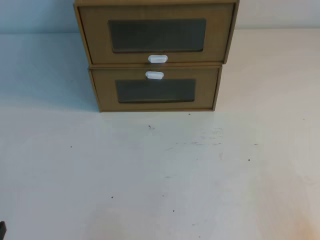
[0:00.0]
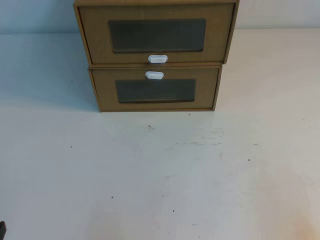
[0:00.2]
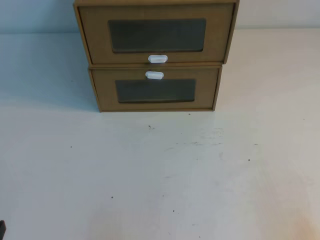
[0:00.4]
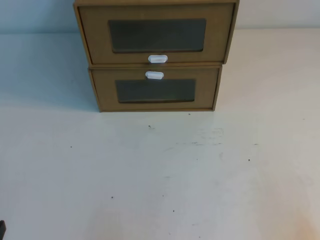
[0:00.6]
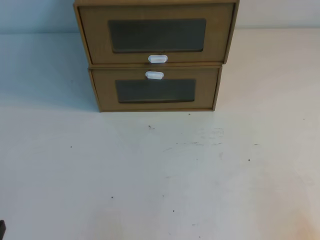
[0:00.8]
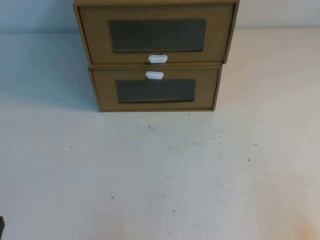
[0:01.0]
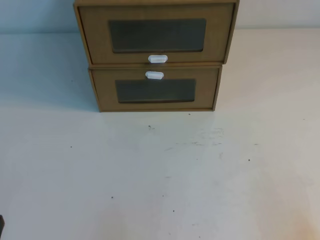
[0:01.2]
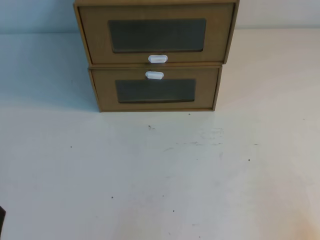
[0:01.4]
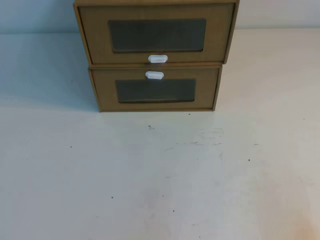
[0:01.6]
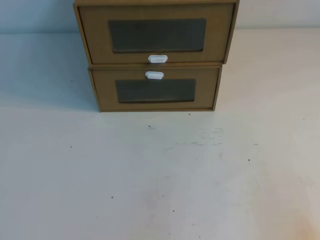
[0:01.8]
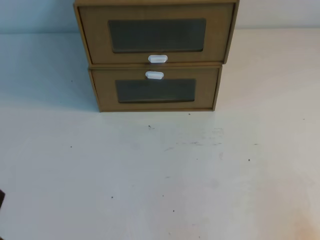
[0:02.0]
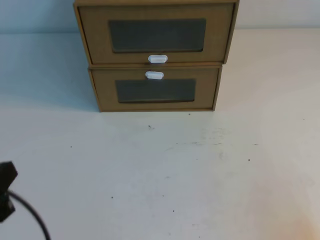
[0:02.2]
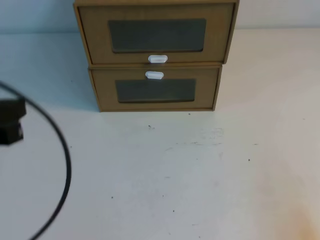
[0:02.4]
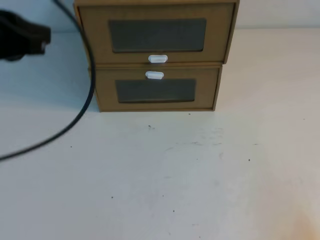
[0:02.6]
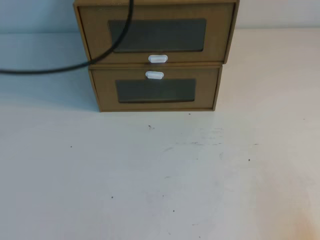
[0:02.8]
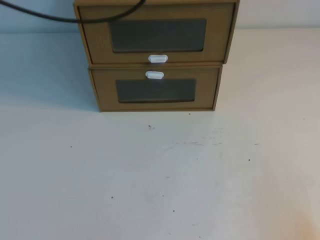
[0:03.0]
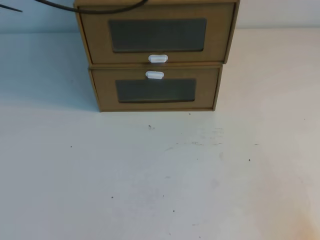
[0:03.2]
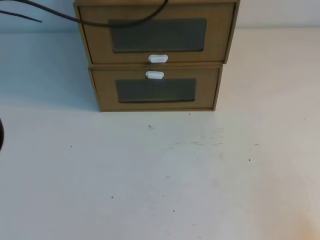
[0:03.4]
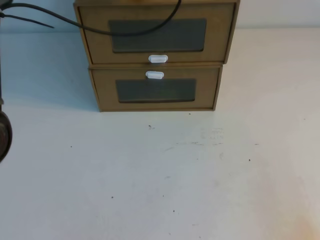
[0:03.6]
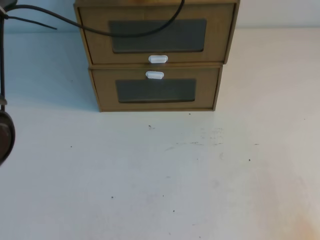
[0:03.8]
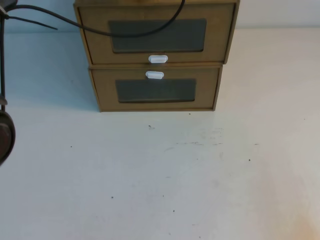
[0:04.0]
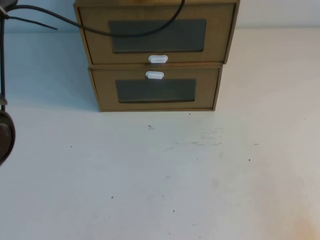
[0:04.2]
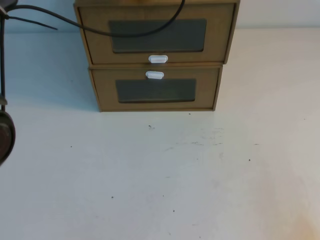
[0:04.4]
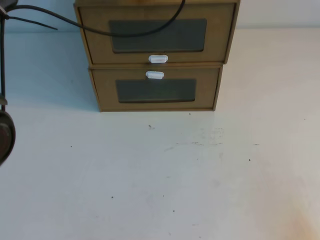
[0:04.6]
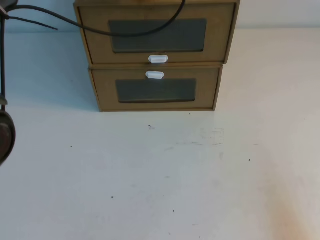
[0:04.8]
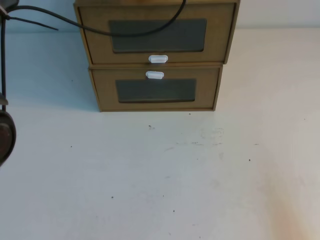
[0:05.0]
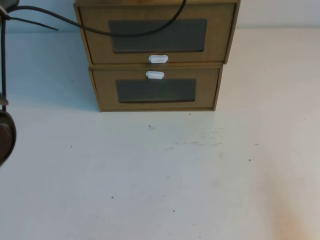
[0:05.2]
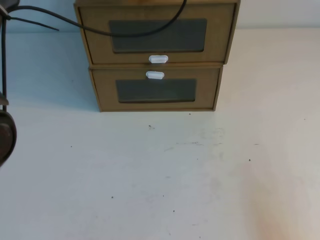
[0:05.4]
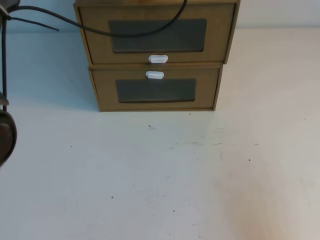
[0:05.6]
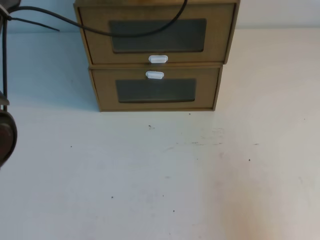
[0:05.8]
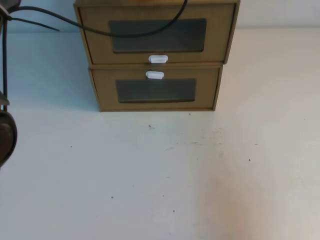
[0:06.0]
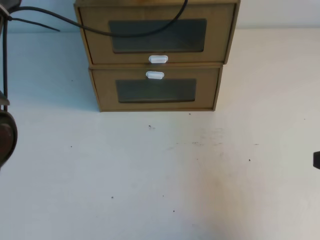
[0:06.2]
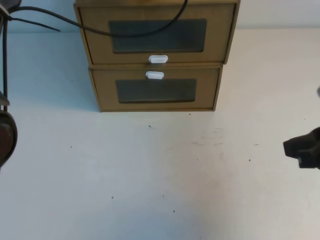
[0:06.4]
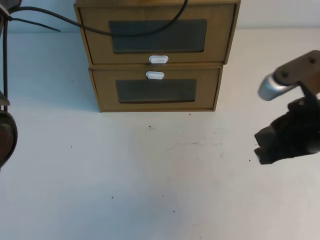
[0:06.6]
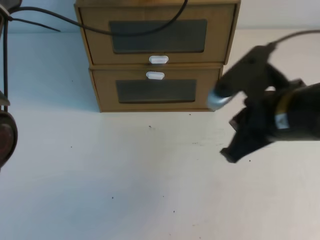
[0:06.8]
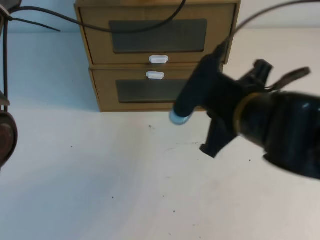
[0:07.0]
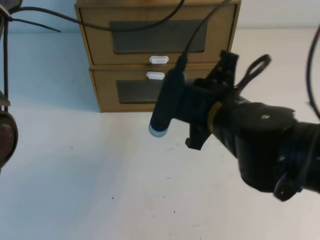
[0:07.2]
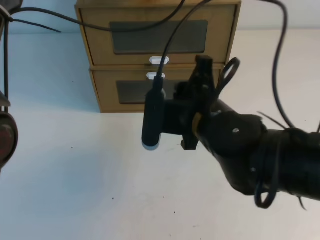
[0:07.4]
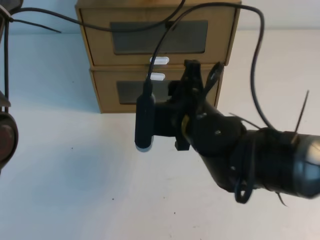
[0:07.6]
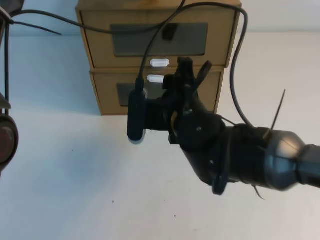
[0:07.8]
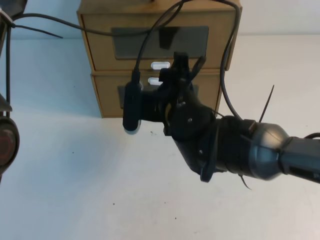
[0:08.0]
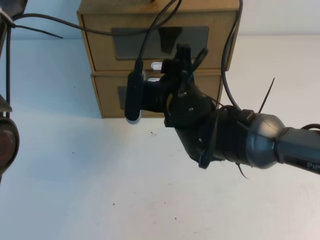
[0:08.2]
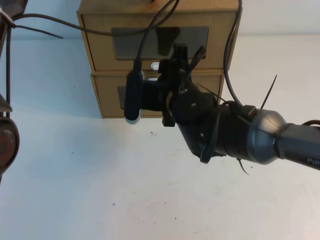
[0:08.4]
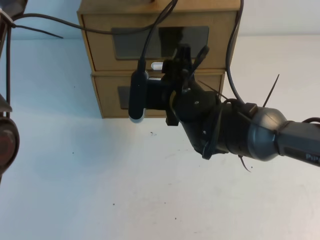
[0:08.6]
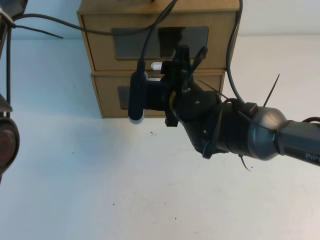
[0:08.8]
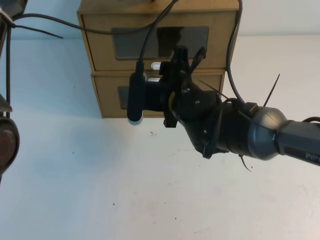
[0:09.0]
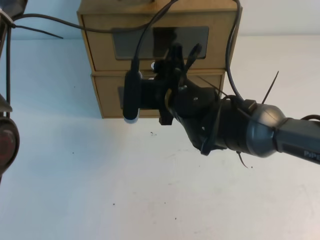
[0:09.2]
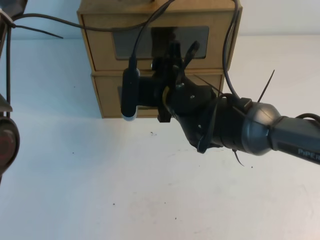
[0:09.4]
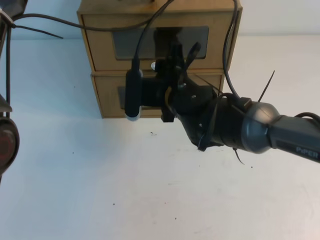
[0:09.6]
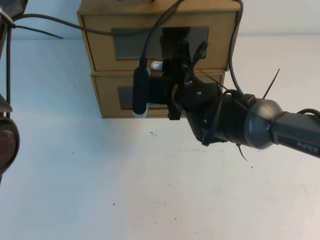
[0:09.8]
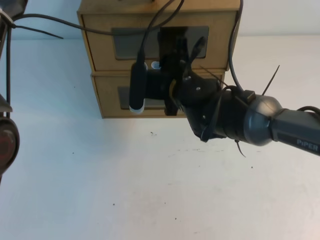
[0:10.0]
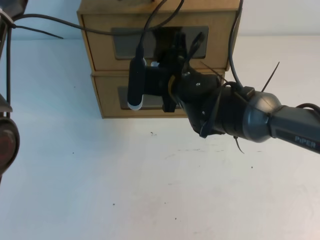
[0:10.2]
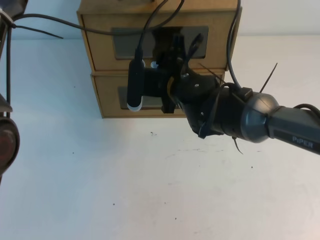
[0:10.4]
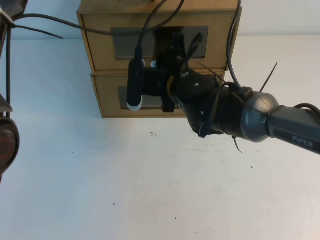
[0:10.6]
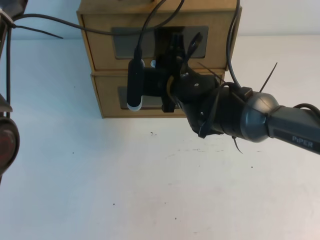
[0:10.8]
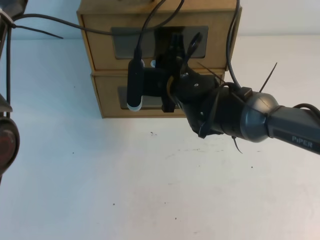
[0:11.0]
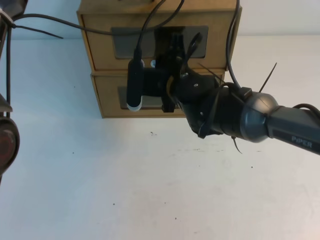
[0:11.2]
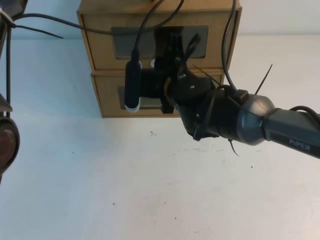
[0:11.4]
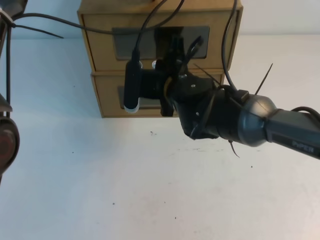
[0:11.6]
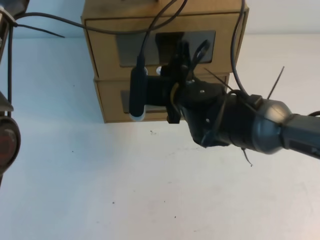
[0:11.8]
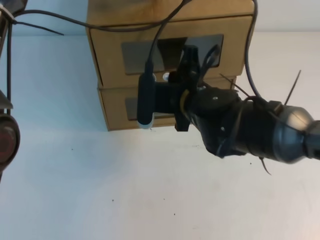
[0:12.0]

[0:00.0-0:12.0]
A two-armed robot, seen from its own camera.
Task of the whole recording: open the shoebox on the table.
0:01.6 to 0:03.0: The left gripper shifts some 40 cm upward and forward.
0:03.0 to 0:04.4: The left gripper goes approximately 15 cm forward, downward and to the right.
0:04.4 to 0:06.0: The right gripper shifts some 10 cm upward.
0:06.0 to 0:07.6: The right gripper heads to the left and forward, covering approximately 30 cm, and opens up.
0:07.6 to 0:09.0: The right gripper moves forward, about 10 cm, and opens.
0:09.0 to 0:10.4: The grippers stay close to where they were, moving slightly.
0:10.4 to 0:12.0: The right gripper closes.

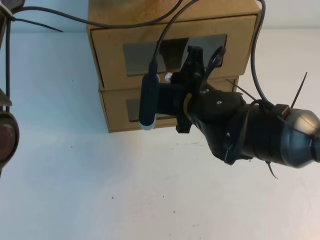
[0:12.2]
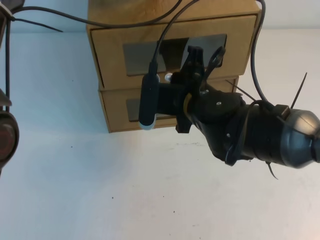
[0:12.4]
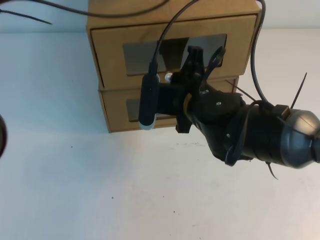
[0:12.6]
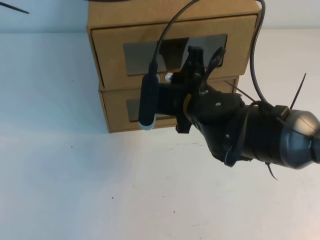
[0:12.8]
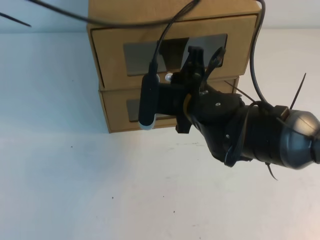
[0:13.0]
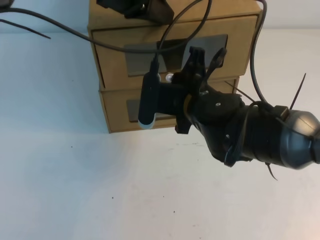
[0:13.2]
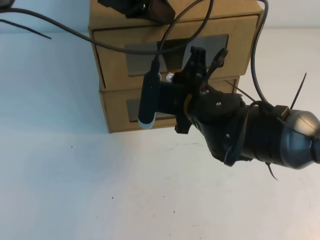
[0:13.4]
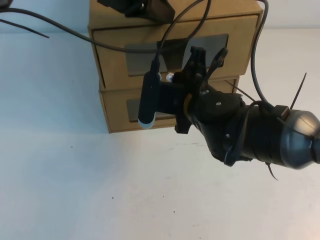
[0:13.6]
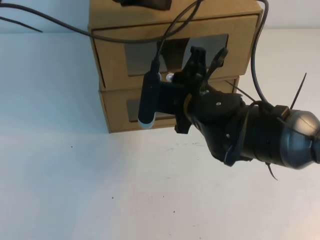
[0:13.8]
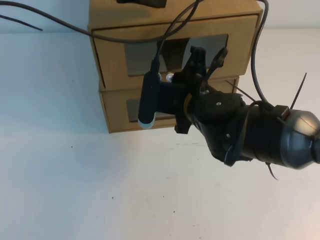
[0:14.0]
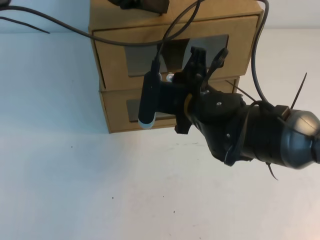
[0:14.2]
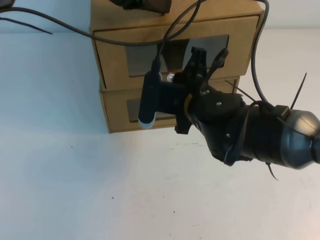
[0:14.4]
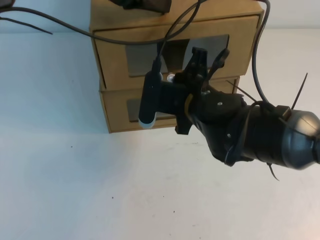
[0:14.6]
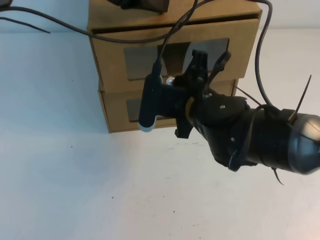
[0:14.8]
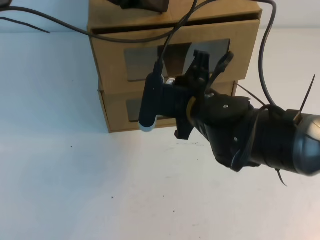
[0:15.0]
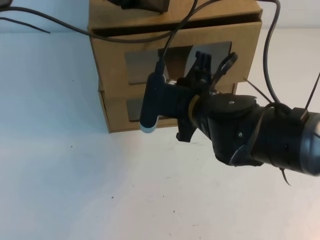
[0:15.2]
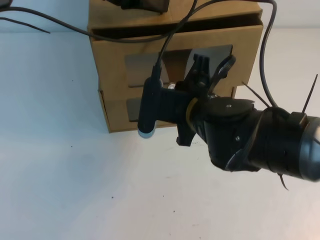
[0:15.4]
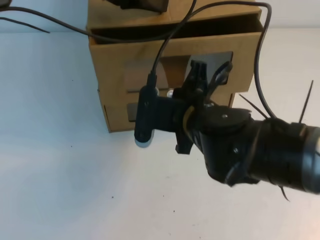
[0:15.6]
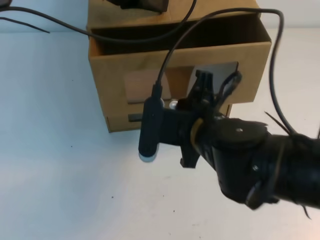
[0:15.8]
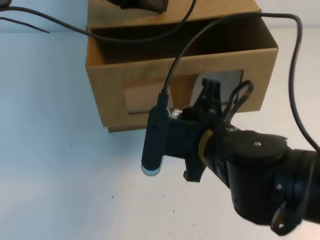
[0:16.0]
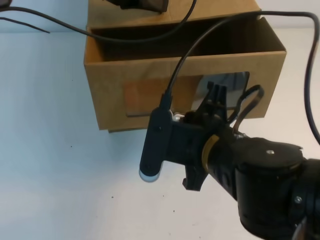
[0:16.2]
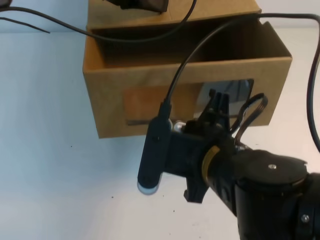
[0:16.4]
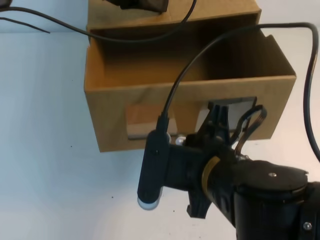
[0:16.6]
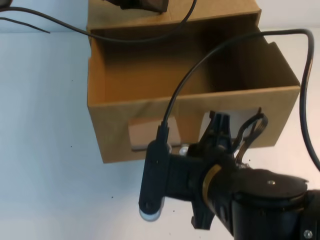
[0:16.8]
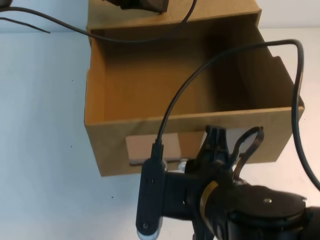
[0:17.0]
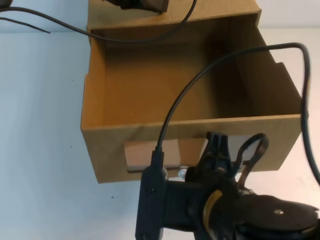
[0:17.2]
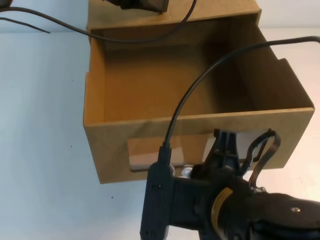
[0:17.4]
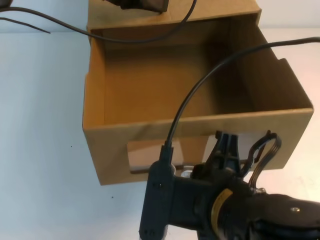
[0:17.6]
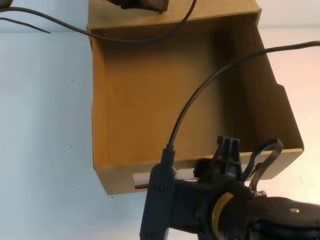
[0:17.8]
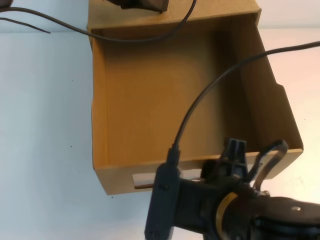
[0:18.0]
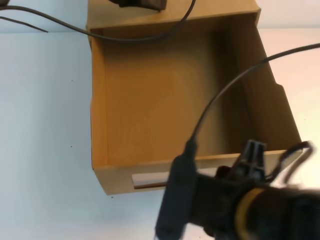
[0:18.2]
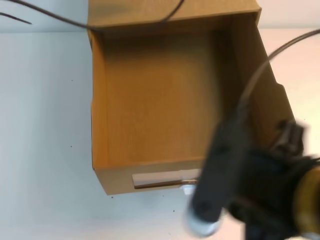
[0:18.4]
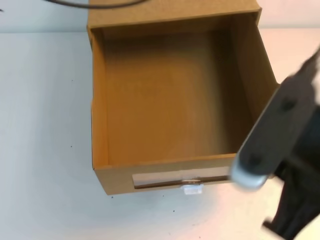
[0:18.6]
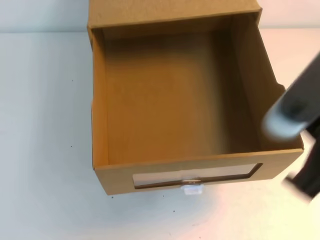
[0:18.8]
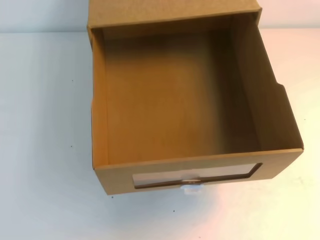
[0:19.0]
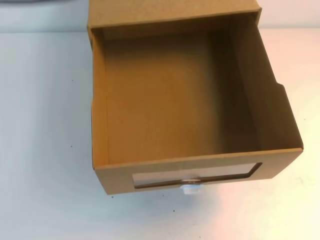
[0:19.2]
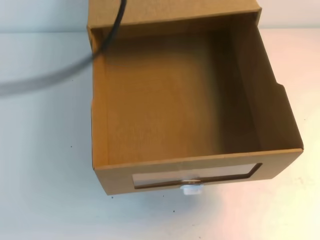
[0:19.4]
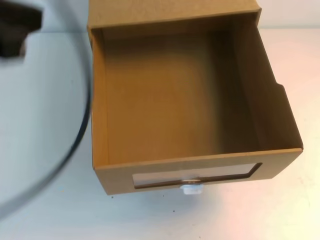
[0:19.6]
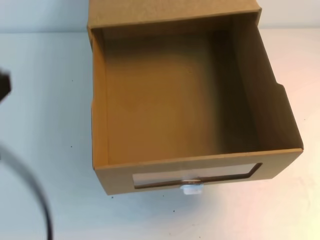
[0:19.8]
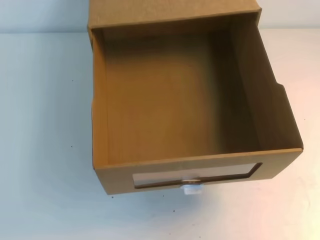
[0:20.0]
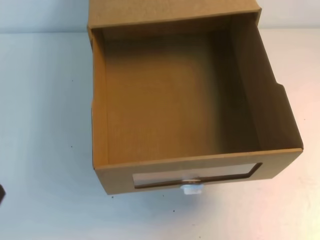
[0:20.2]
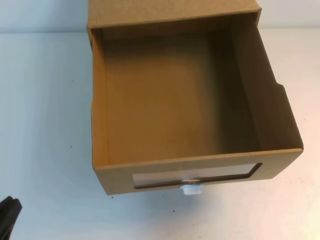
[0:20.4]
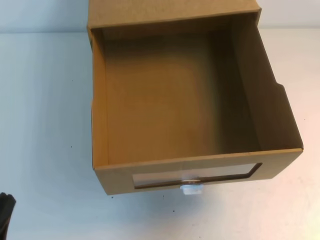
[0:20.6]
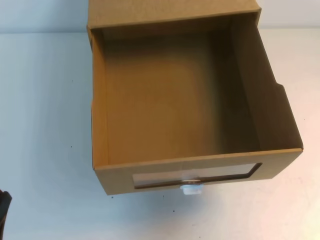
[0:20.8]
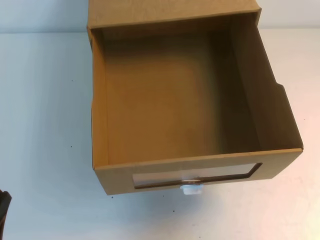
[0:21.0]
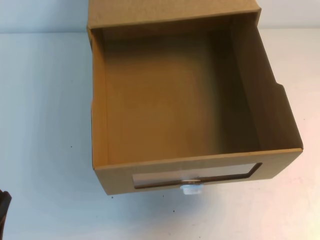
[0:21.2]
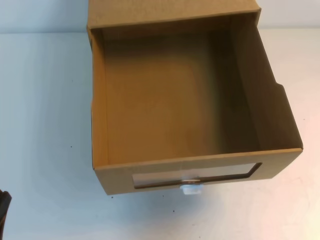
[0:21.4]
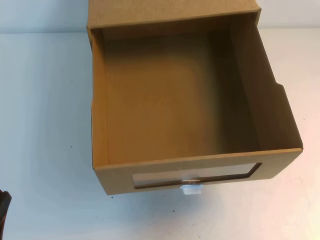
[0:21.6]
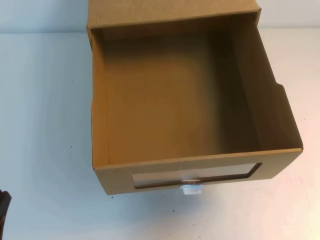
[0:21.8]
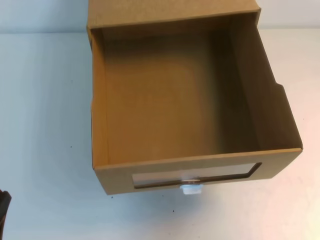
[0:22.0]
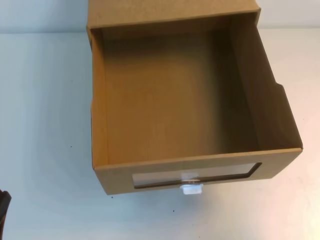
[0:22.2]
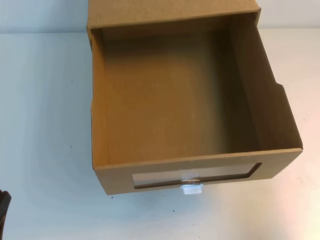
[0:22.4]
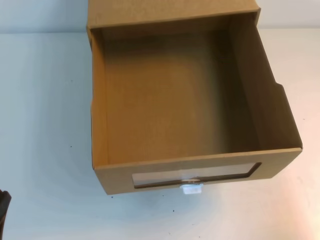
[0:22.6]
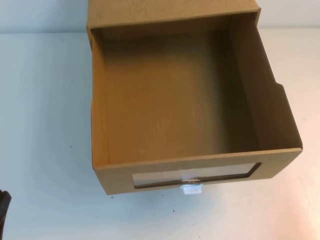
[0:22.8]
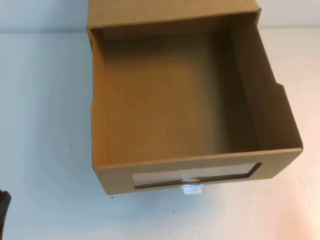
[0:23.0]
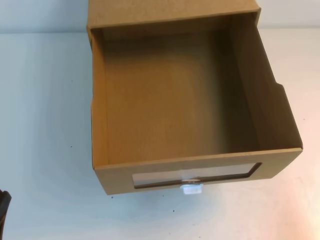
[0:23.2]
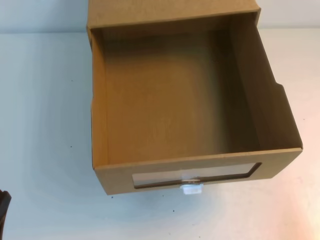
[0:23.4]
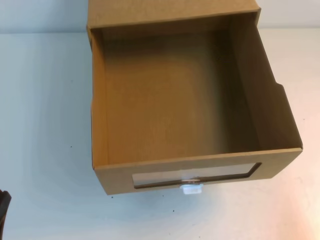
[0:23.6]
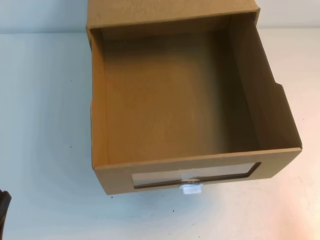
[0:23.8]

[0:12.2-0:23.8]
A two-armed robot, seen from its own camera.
Task of the whole recording: open the shoebox on the table.
0:12.2 to 0:13.6: The left gripper goes about 5 cm backward.
0:13.6 to 0:15.0: The grippers stay close to where they were, moving slightly.
0:15.0 to 0:16.6: The right gripper moves backward, approximately 15 cm.
0:16.6 to 0:18.0: The right gripper is displaced backward by some 5 cm, and opens its fingers.
0:18.0 to 0:19.4: The right gripper travels to the right and upward by about 25 cm, and closes up, while the left gripper travels backward, upward and to the left by about 25 cm.
0:19.4 to 0:21.0: The left gripper is displaced downward and backward by about 40 cm.
0:21.0 to 0:22.4: The right gripper shifts some 10 cm downward.
0:22.4 to 0:23.8: The right gripper goes some 15 cm downward and backward.
